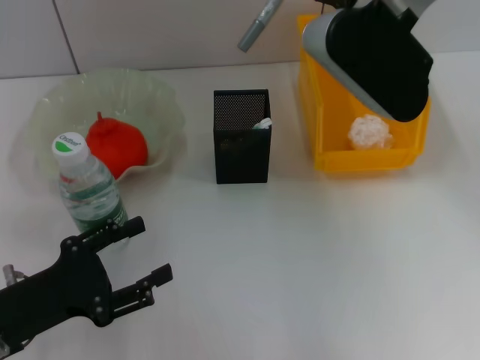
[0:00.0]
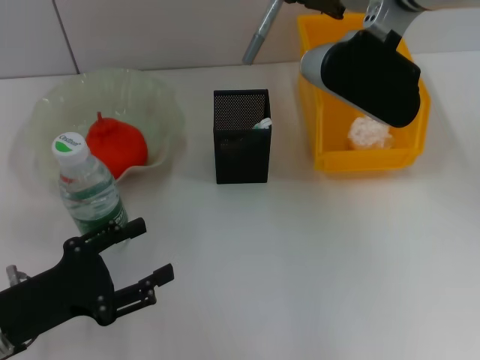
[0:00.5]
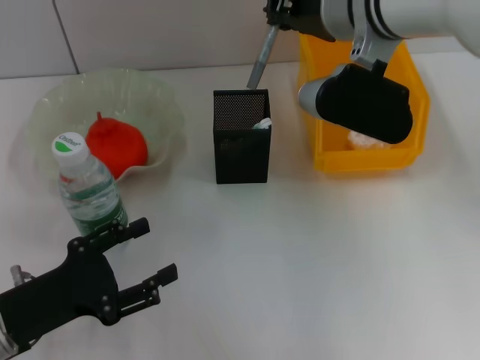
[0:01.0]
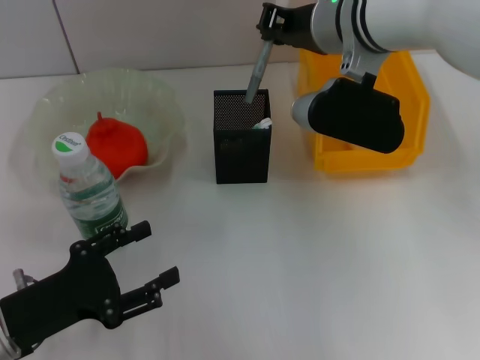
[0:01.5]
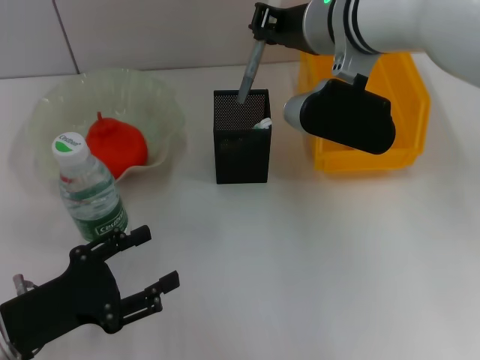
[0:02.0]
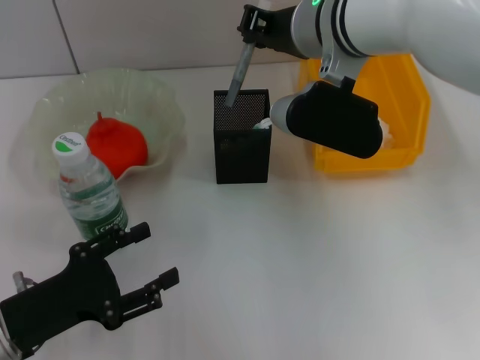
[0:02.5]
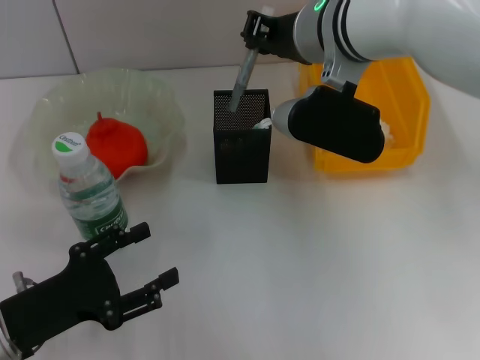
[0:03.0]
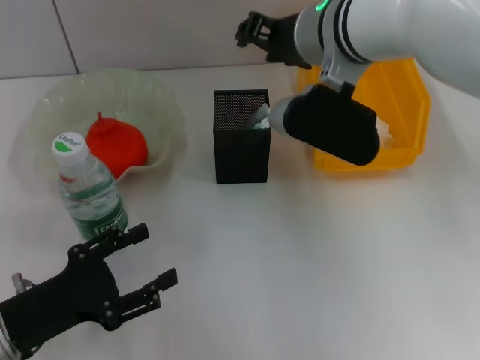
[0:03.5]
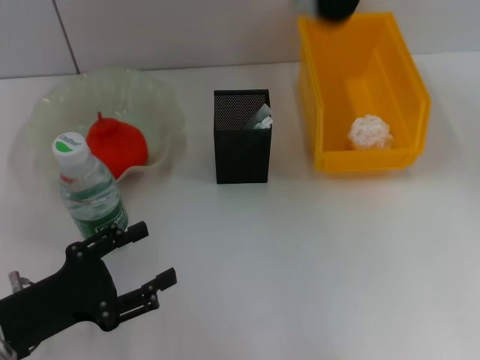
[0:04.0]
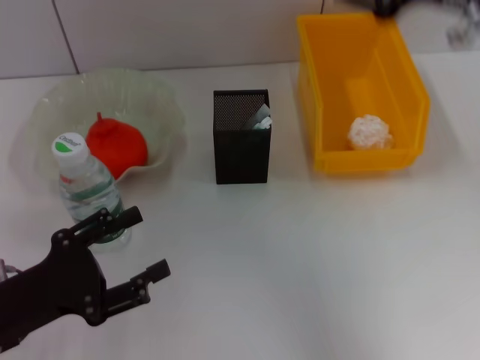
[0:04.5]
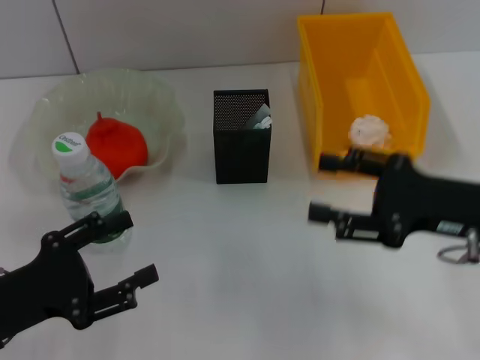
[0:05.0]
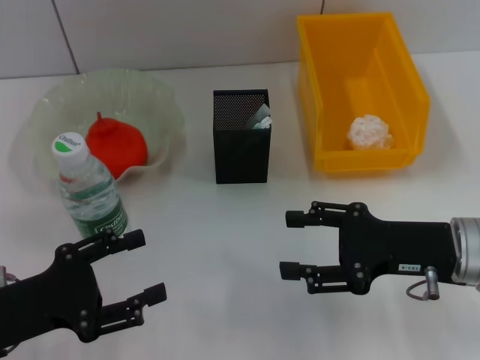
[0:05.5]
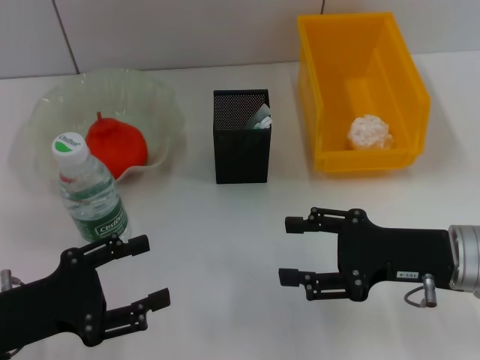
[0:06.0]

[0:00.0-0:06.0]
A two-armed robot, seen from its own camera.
Step, 0:00.0 to 0:03.0: Place the gray glue into the pen holder with the right hand.
0:00.0 to 0:02.0: The right gripper is displaced downward by some 5 cm.
0:02.0 to 0:04.0: The right gripper shifts approximately 10 cm upward, and opens its fingers.
0:04.0 to 0:06.0: The right gripper goes roughly 30 cm downward, backward and to the right.
